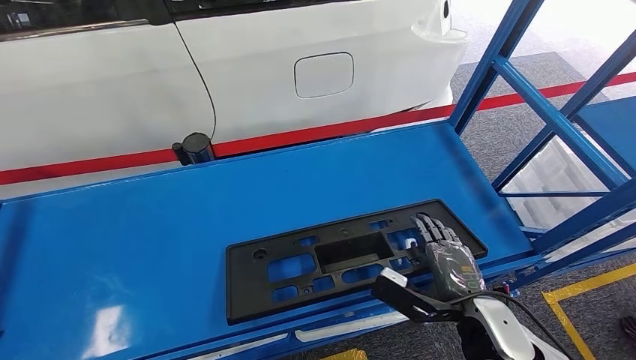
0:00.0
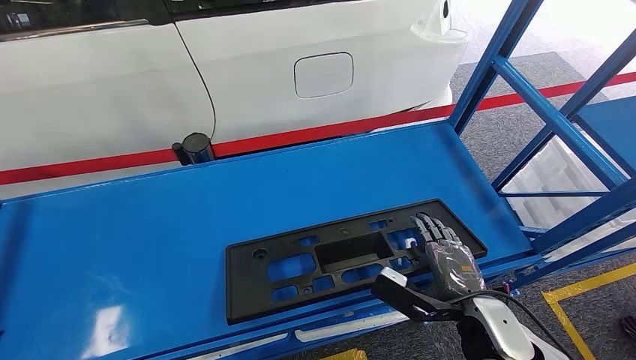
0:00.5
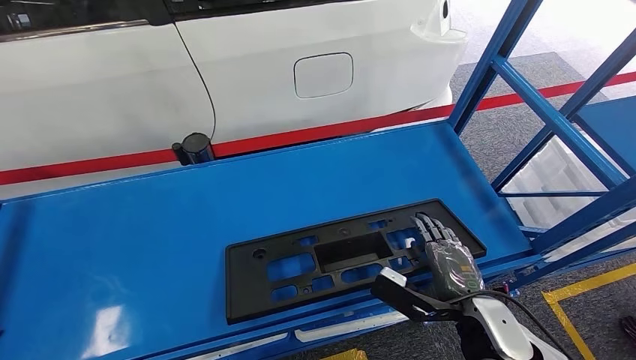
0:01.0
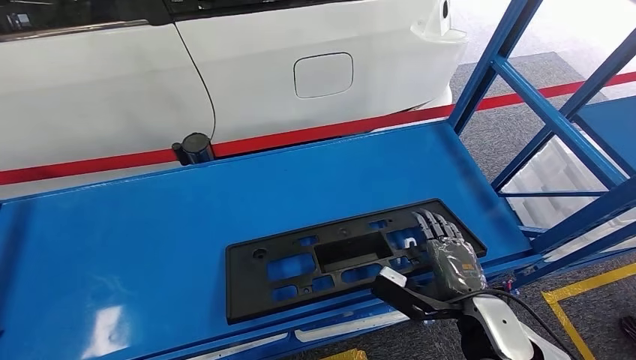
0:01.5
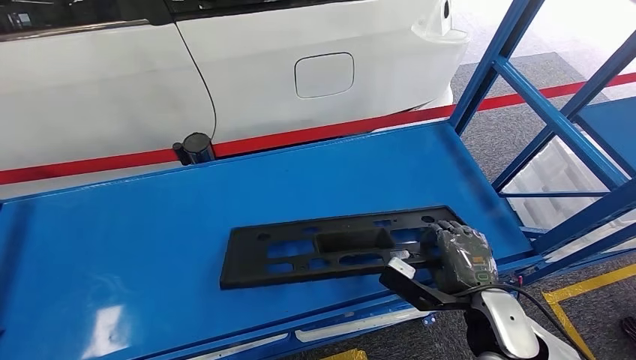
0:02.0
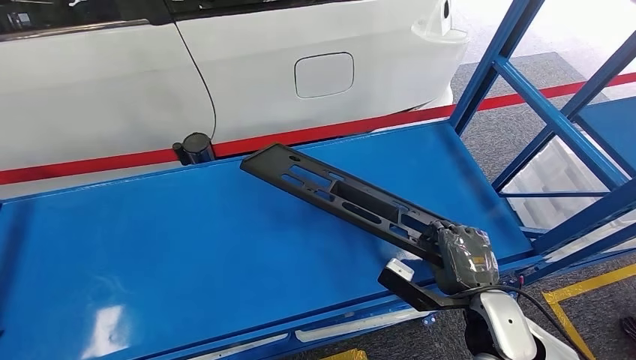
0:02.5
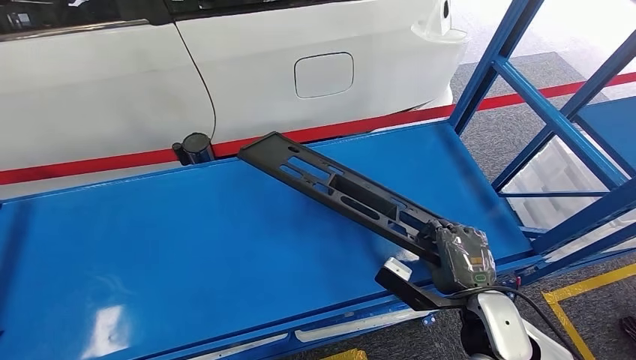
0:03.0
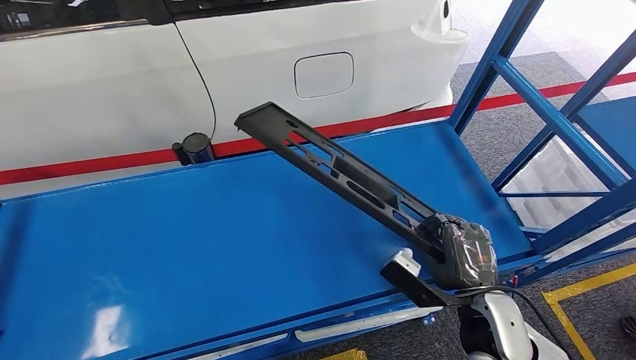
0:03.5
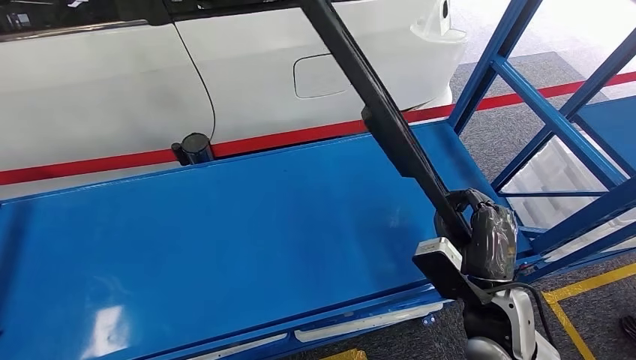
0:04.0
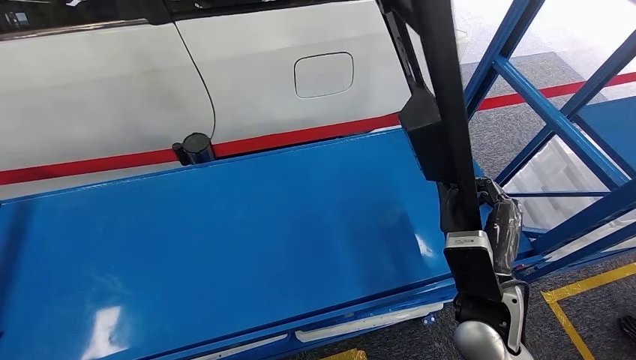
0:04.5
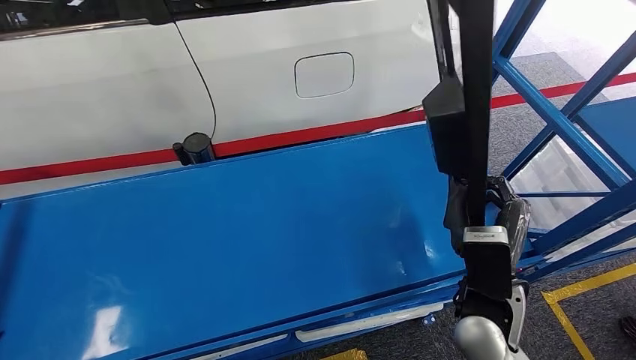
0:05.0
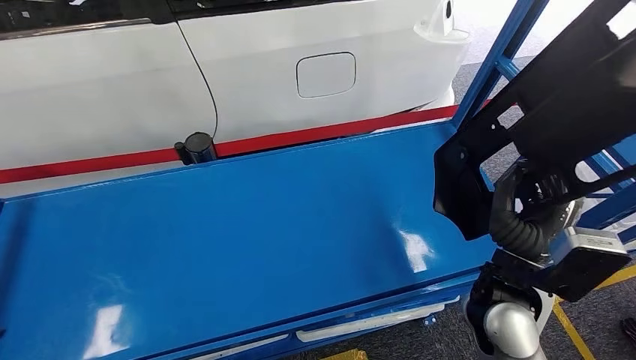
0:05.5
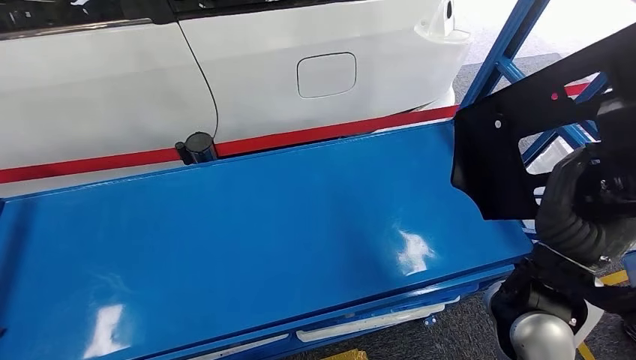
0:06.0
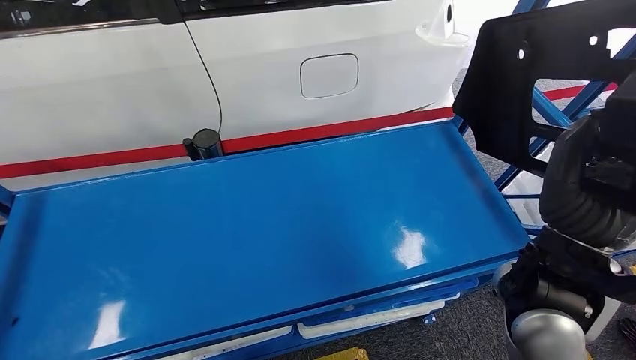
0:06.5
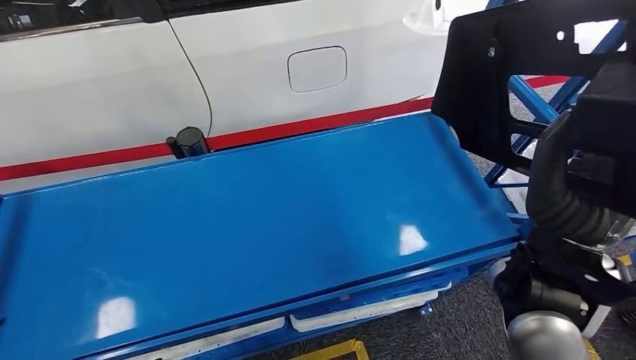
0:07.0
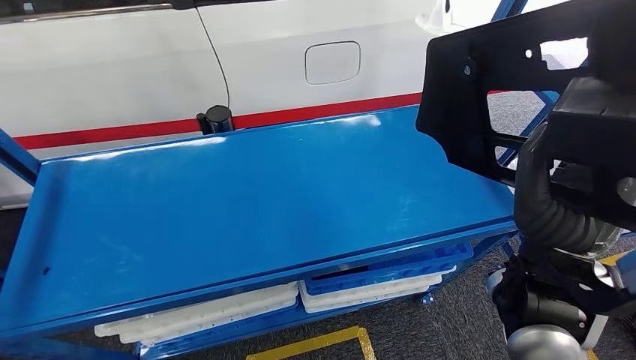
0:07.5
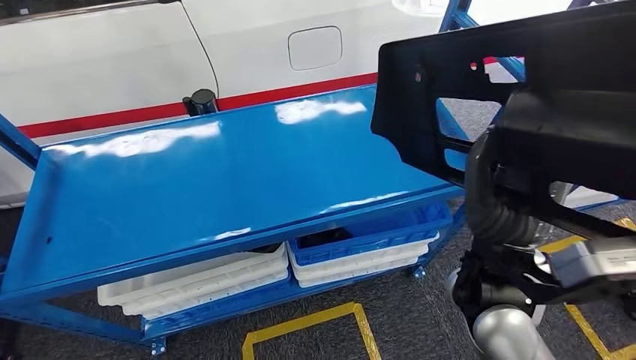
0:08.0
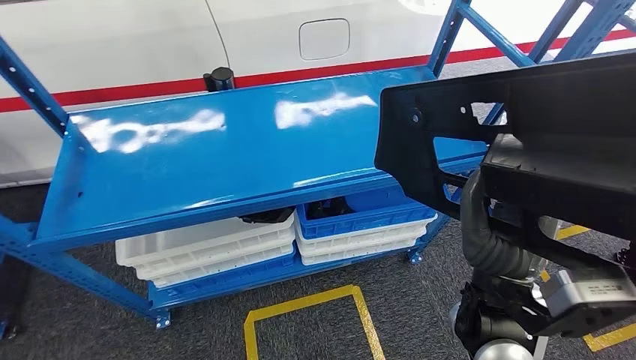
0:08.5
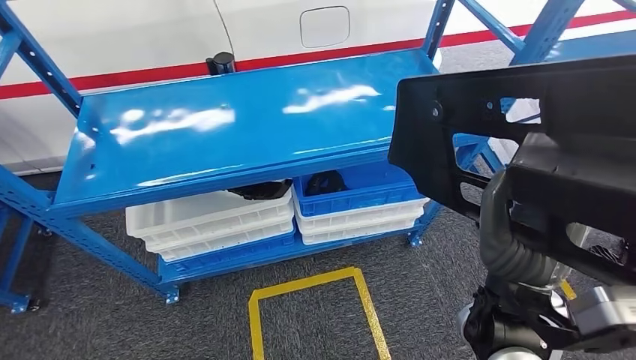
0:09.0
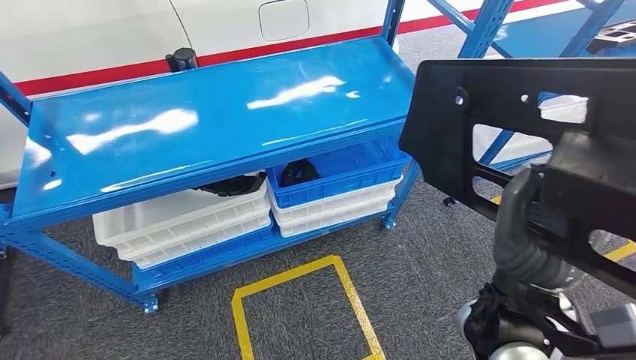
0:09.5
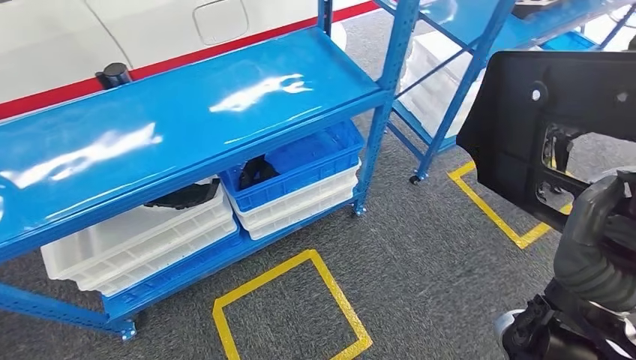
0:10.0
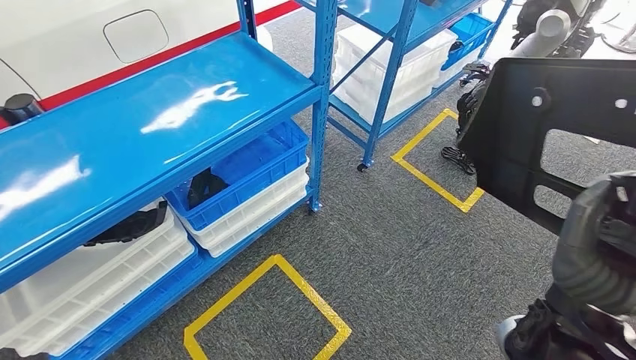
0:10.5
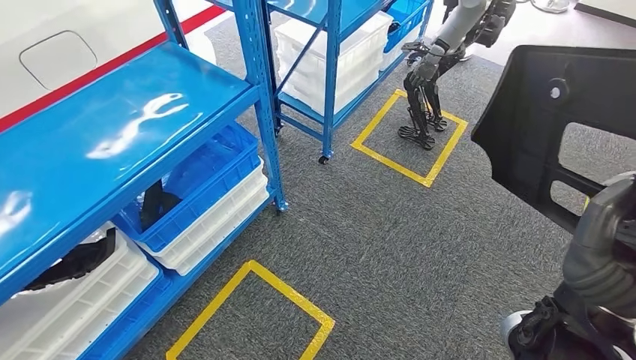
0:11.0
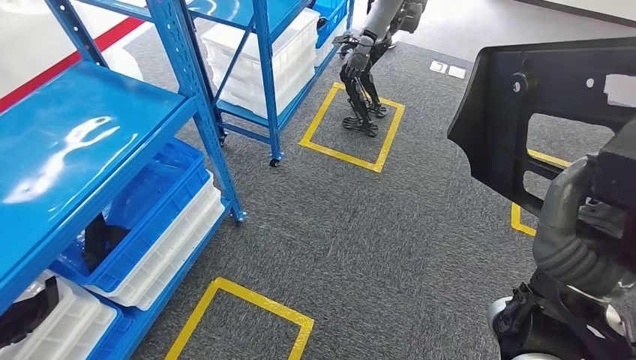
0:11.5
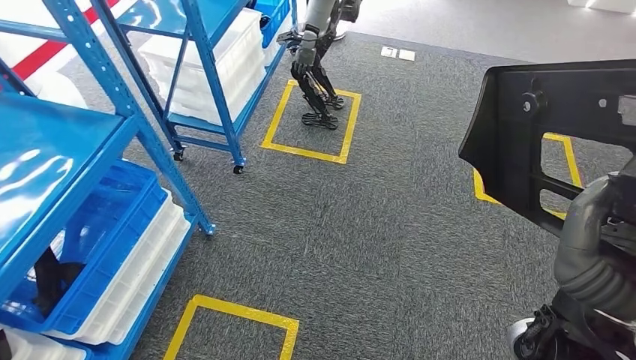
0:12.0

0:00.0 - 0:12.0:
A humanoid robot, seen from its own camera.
Step, 0:00.0 - 0:08.0: Pick up the large material from the shelf.
0:00.0 - 0:02.0: There are only small adjustments of the hands.

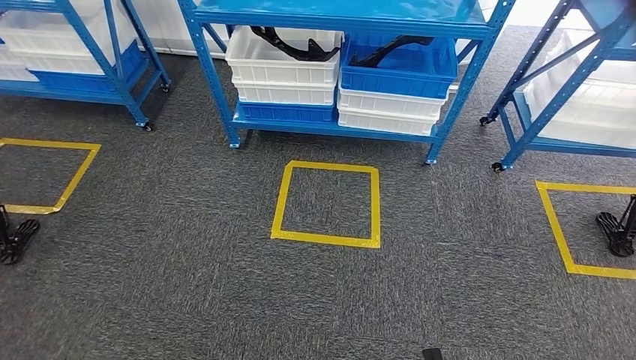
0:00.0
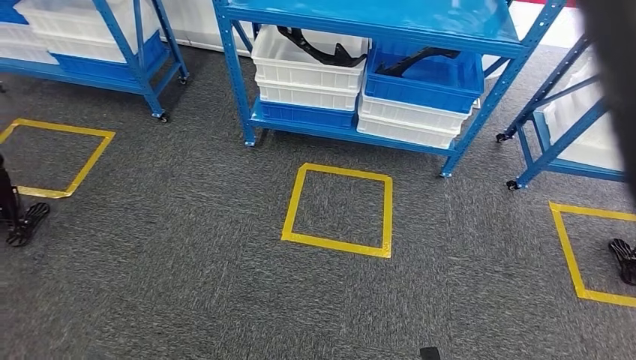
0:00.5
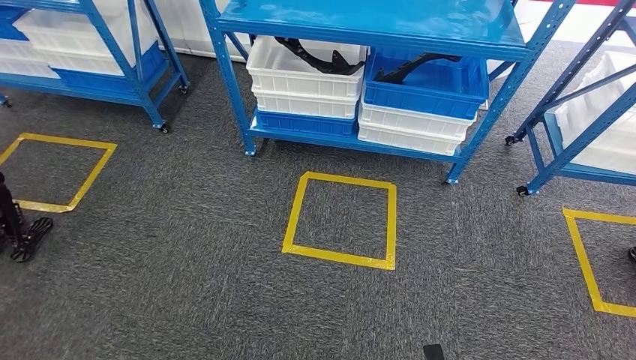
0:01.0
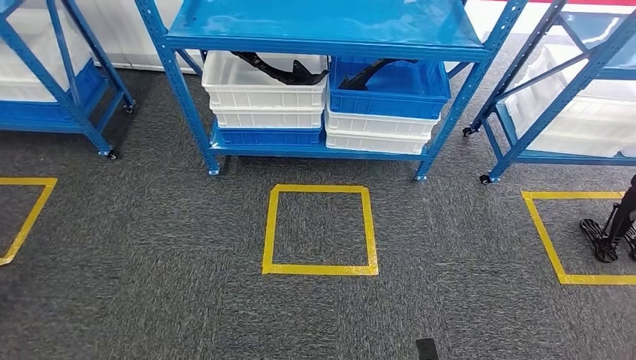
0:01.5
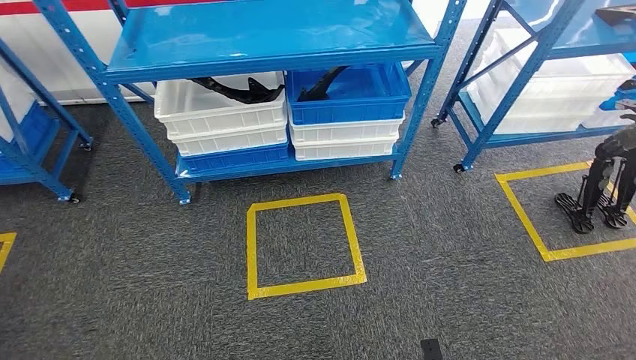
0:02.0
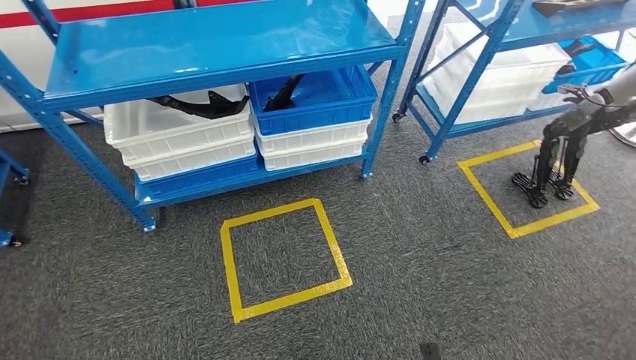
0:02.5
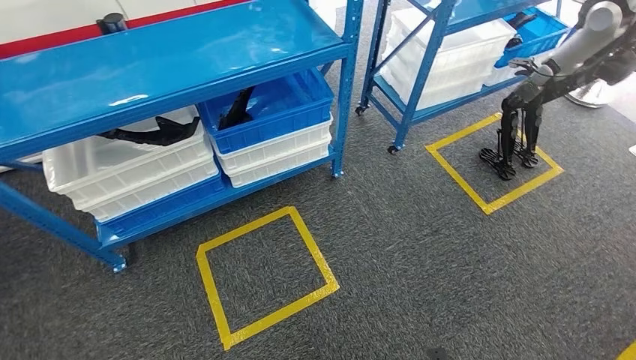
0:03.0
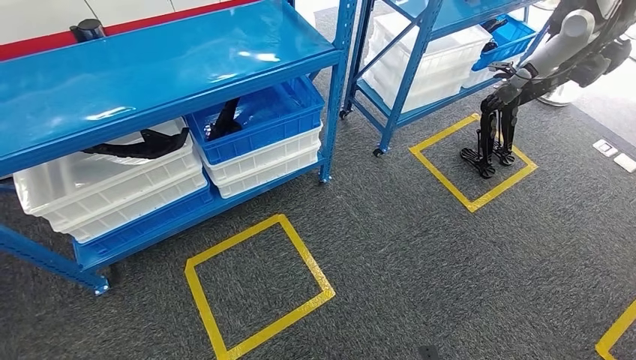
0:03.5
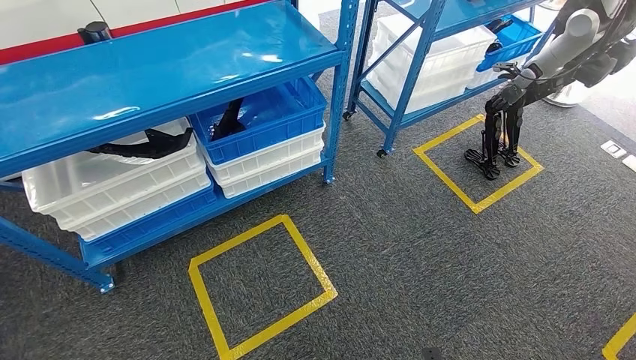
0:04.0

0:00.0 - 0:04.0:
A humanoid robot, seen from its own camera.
Step, 0:00.0 - 0:04.0: Move to the initial position of the shelf.
